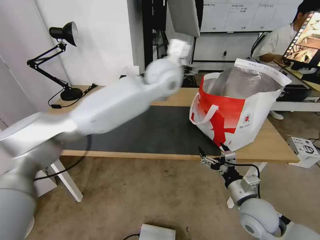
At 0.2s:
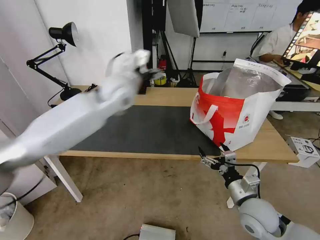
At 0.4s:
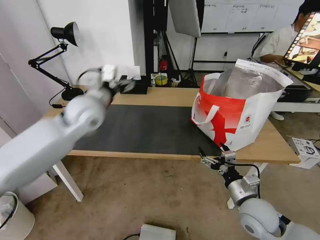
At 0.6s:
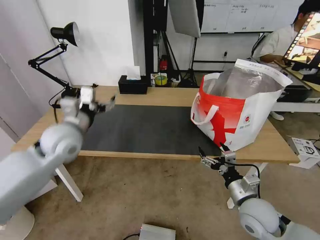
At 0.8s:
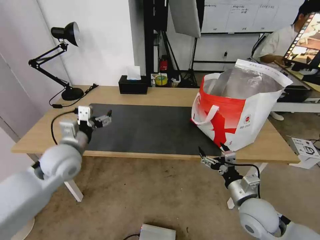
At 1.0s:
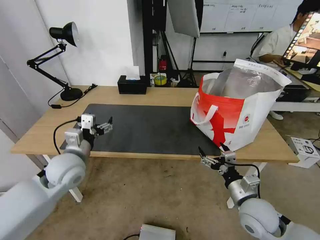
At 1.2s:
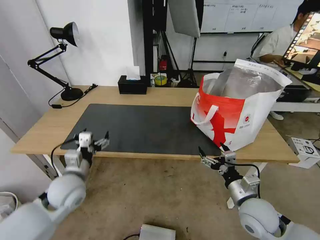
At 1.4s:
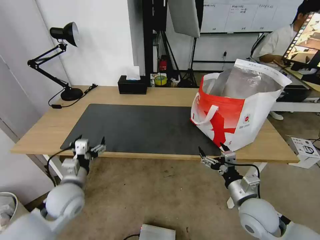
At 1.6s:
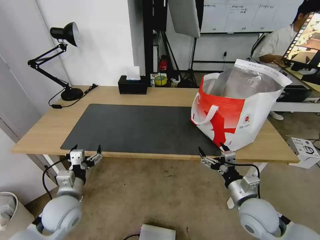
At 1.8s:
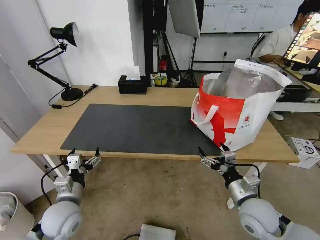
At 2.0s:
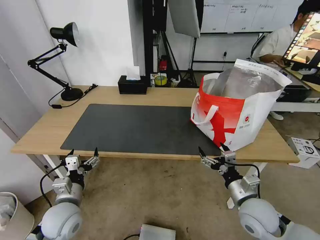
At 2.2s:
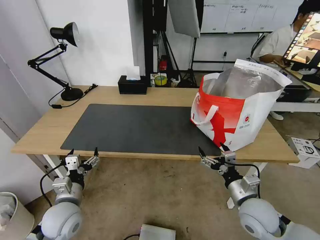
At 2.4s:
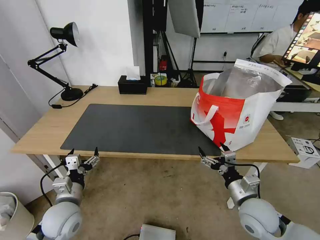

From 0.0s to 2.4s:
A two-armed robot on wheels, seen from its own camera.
Task of the whole recording: Pick up the trash from the table and place it into the takeout bag.
From 0.0s to 1.2s: The left gripper heads to the left, downward and backward, covering about 40 cm.
From 1.2s to 2.4s: The left gripper is displaced backward and downward by about 10 cm.

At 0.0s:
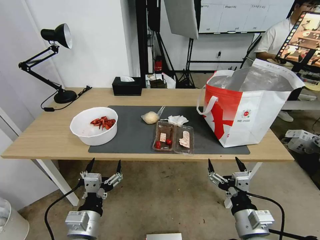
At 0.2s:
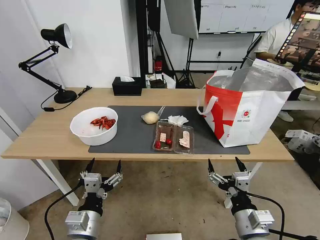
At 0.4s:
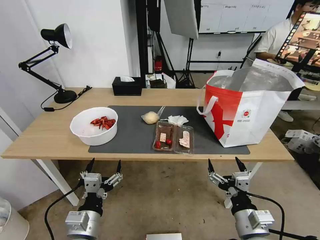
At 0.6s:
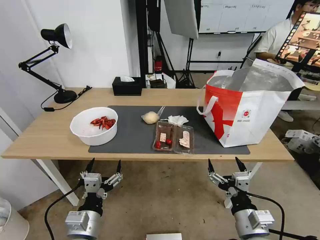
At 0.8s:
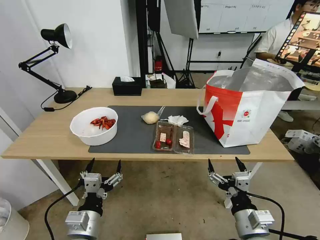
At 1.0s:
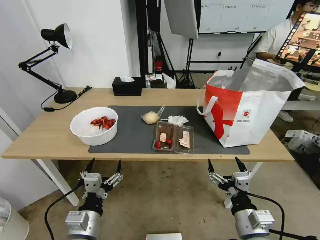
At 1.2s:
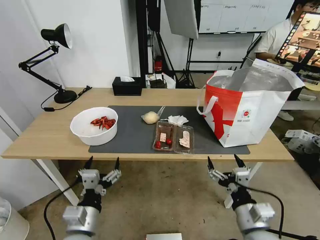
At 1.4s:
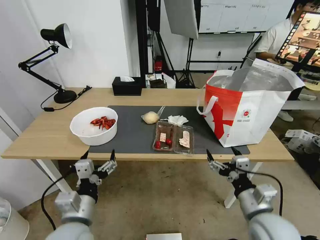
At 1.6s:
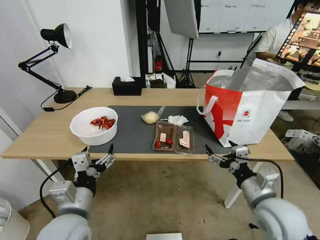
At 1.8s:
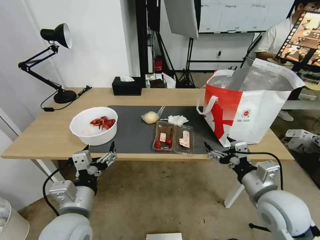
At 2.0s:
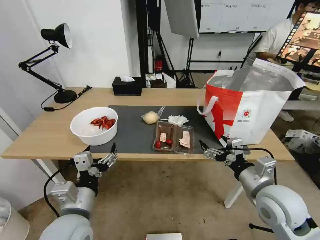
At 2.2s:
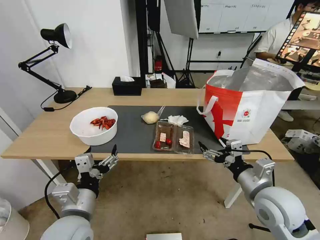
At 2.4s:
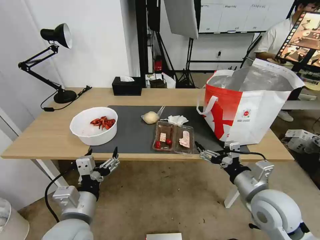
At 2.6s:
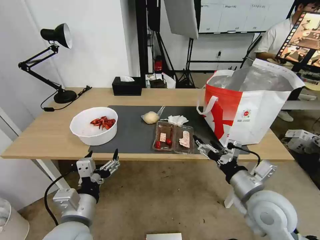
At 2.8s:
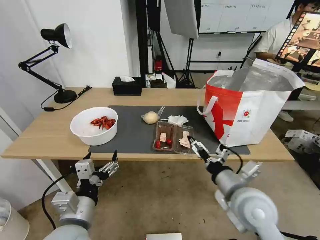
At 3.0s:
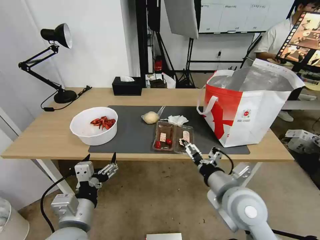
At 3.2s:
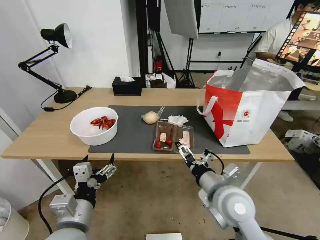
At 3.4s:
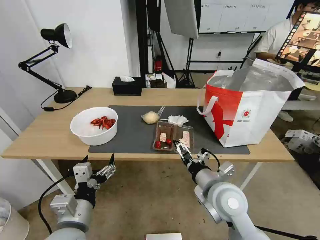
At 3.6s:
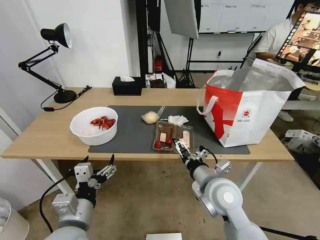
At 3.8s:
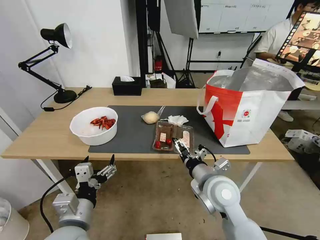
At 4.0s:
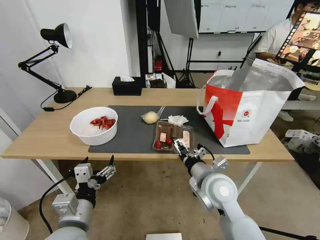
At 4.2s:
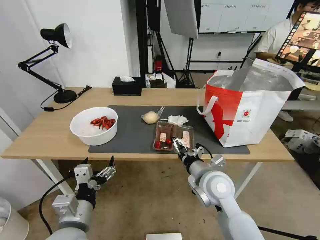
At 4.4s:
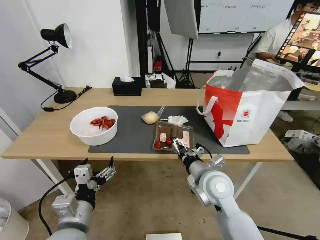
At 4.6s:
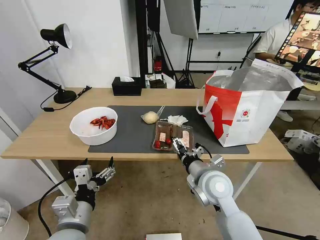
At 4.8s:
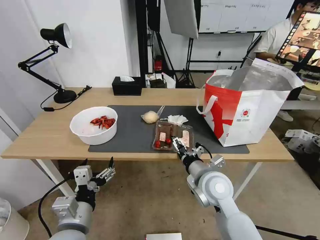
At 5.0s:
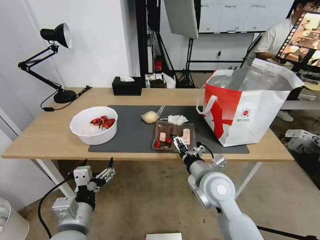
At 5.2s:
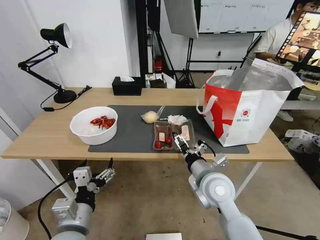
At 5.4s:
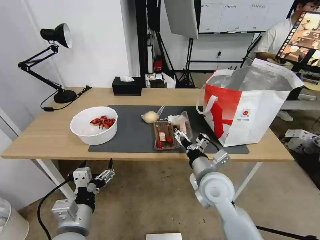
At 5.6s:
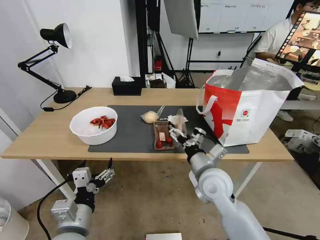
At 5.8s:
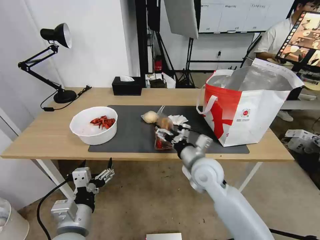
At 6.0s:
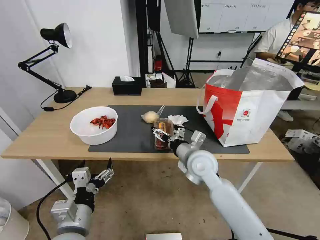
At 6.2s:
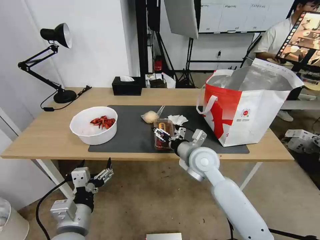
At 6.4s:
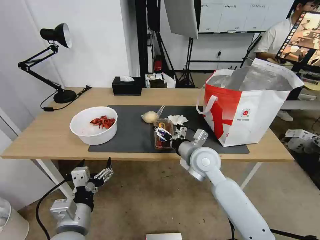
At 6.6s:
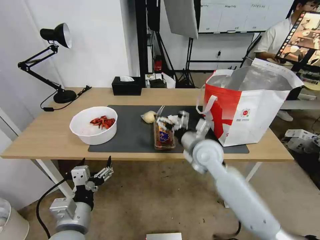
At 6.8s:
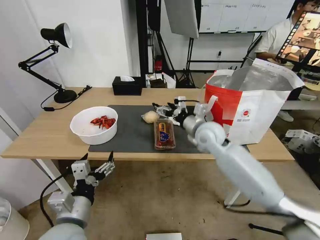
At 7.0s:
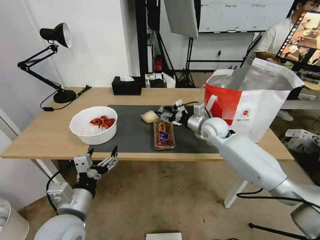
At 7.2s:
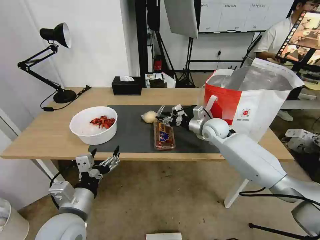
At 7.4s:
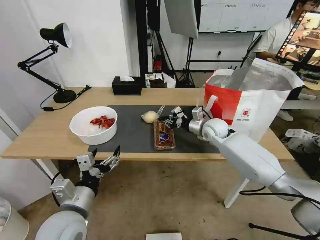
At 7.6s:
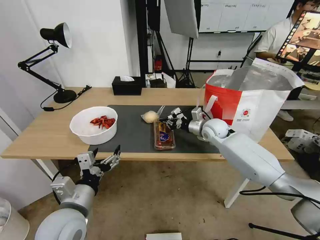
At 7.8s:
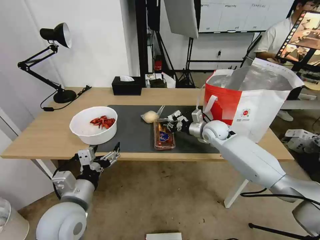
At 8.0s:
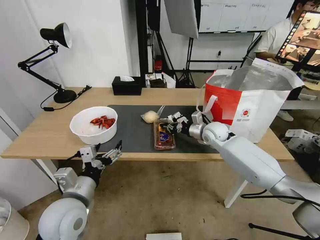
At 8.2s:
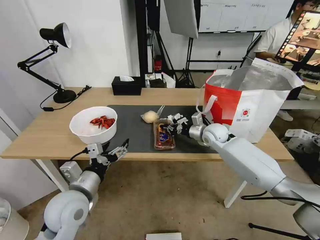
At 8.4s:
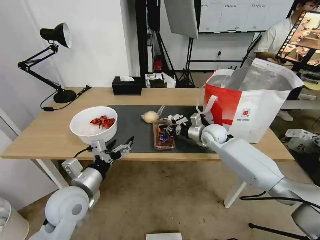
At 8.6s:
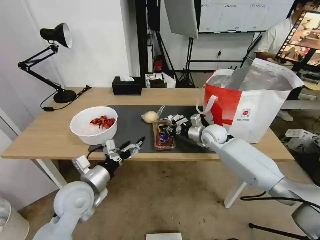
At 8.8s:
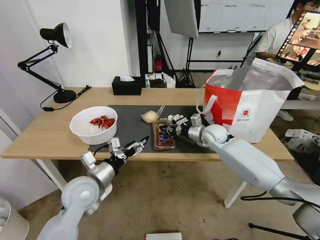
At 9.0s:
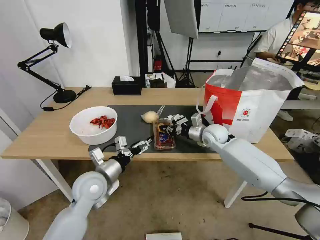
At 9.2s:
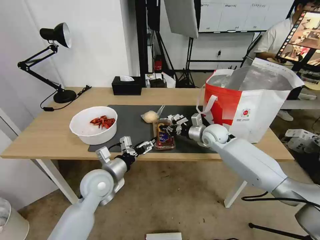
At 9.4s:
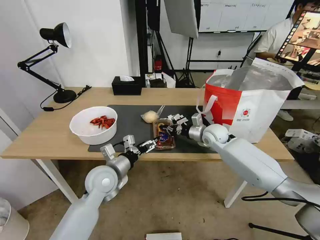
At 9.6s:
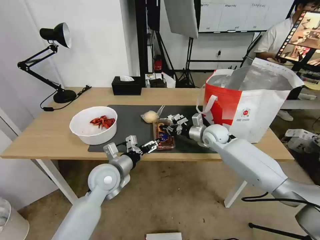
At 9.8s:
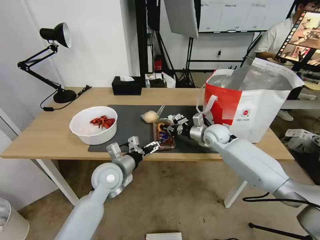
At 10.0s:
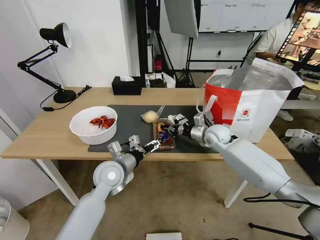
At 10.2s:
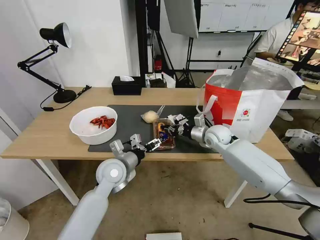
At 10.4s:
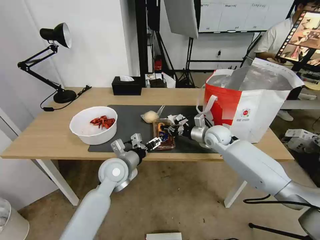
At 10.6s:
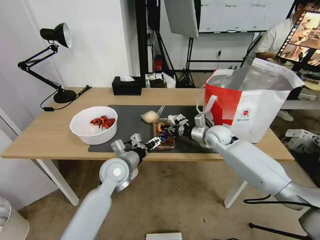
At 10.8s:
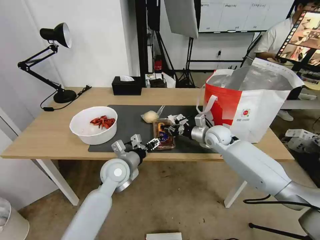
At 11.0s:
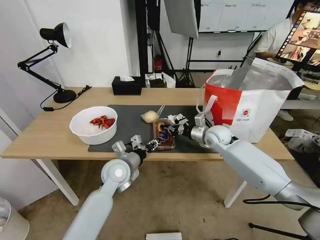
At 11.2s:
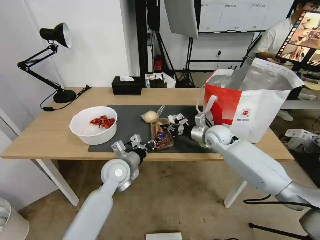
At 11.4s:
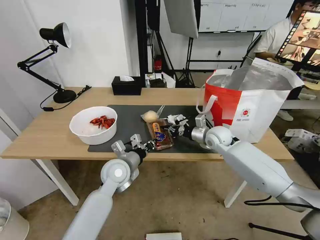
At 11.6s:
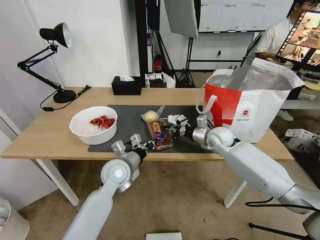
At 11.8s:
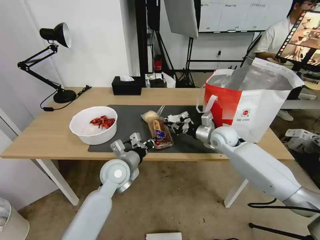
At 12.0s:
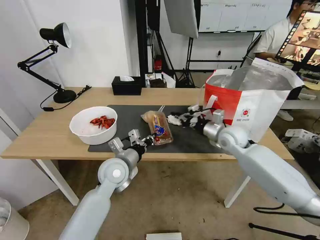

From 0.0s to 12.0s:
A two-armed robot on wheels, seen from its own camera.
Task of the whole recording: Pick up the trash from the table and place it into the takeout bag.
From 1.6s to 3.0s: The right gripper goes about 10 cm to the left.
From 3.0s to 4.4s: The right gripper shifts some 5 cm forward.
From 4.4s to 6.0s: The right gripper shifts about 5 cm forward.
From 6.0s to 7.6s: The right gripper travels forward and to the right by some 20 cm, and closes, while the left gripper ends up some 5 cm from where it was.
From 7.6s to 9.0s: The left gripper heads forward, covering approximately 10 cm.
From 9.0s to 10.4s: The left gripper is displaced to the right and forward by about 10 cm.
From 10.4s to 12.0s: The left gripper closes; the right gripper ends up approximately 5 cm from where it was.

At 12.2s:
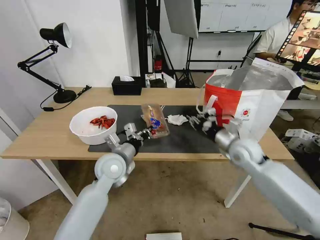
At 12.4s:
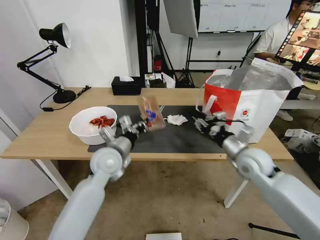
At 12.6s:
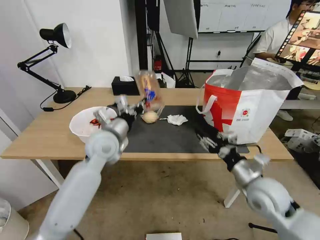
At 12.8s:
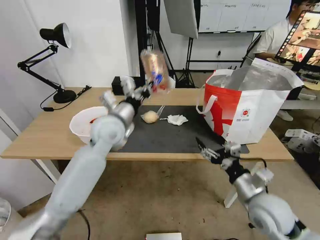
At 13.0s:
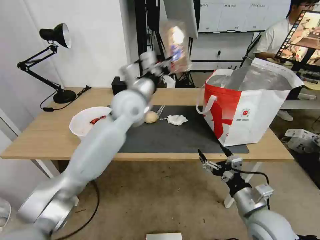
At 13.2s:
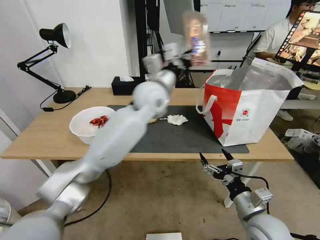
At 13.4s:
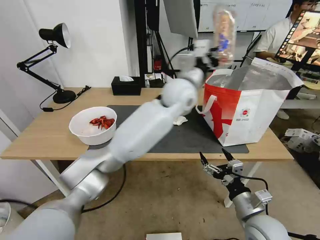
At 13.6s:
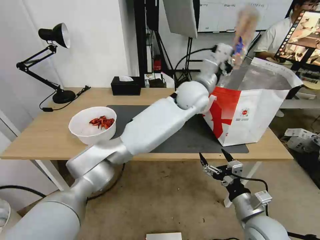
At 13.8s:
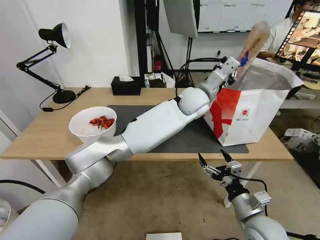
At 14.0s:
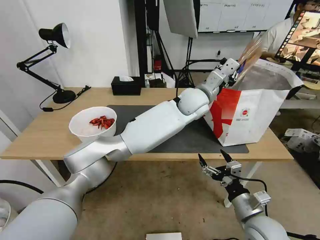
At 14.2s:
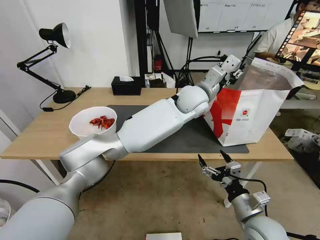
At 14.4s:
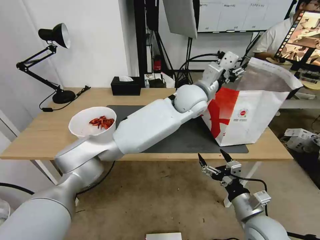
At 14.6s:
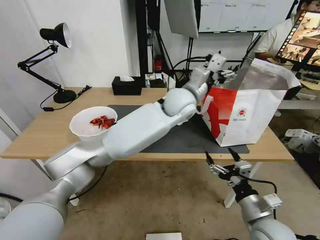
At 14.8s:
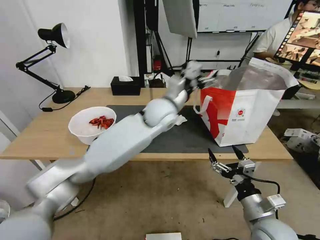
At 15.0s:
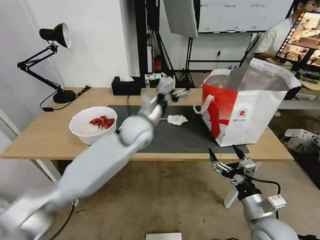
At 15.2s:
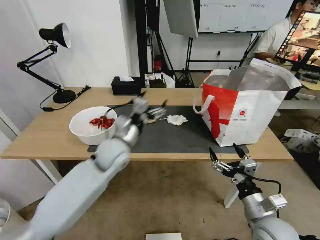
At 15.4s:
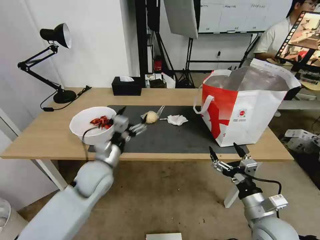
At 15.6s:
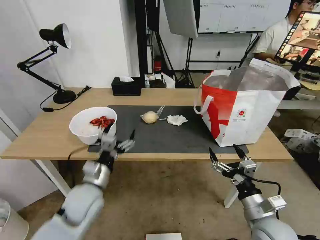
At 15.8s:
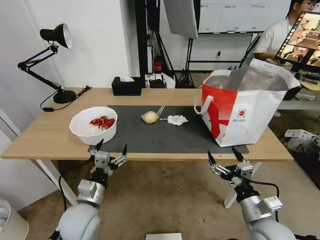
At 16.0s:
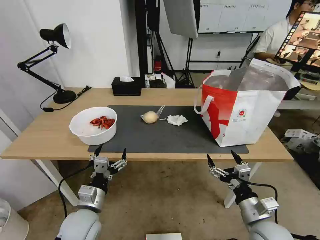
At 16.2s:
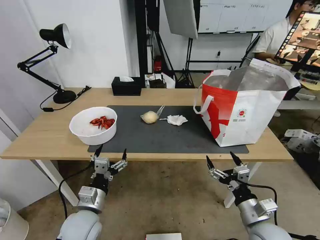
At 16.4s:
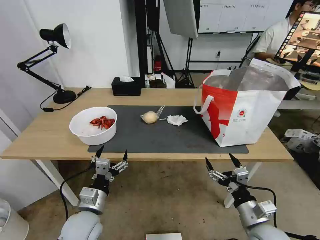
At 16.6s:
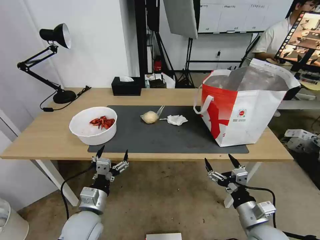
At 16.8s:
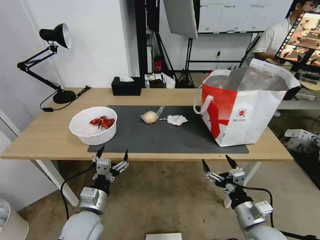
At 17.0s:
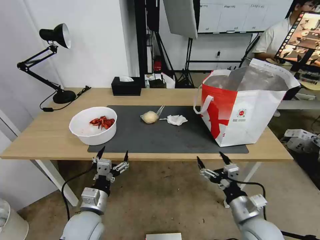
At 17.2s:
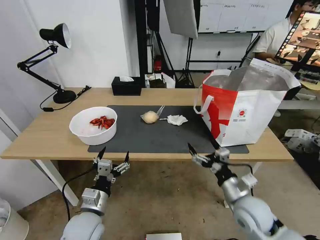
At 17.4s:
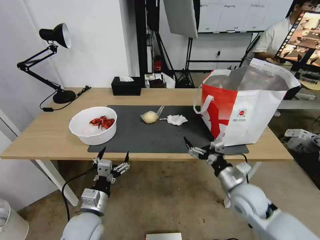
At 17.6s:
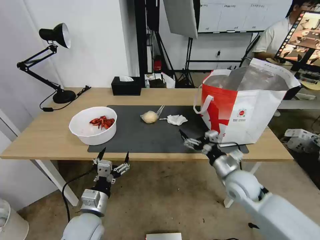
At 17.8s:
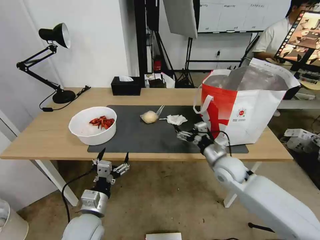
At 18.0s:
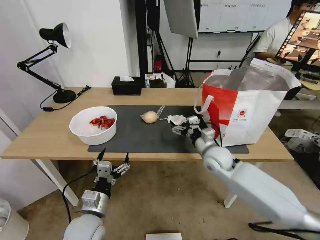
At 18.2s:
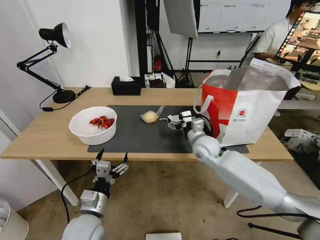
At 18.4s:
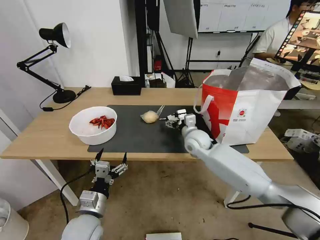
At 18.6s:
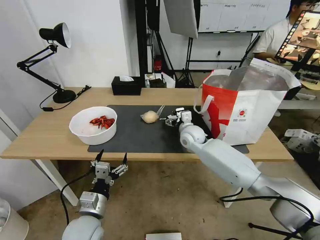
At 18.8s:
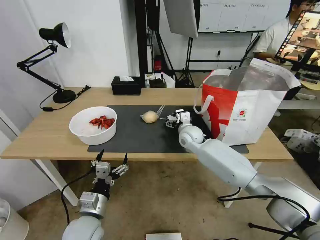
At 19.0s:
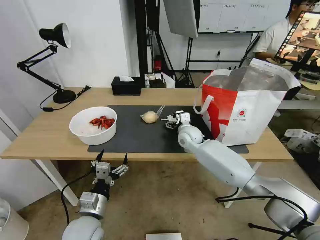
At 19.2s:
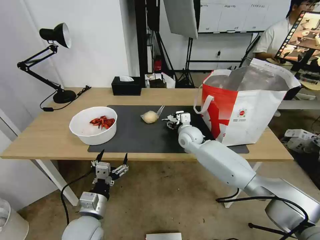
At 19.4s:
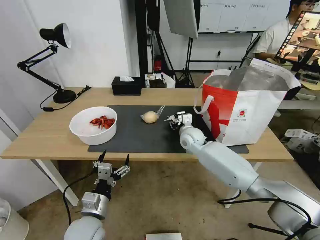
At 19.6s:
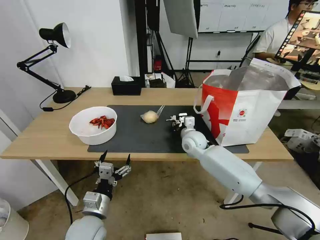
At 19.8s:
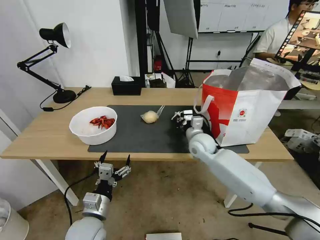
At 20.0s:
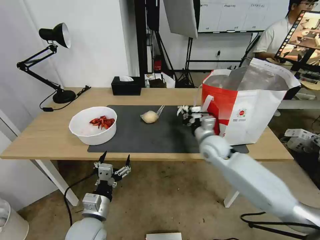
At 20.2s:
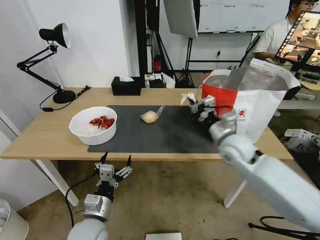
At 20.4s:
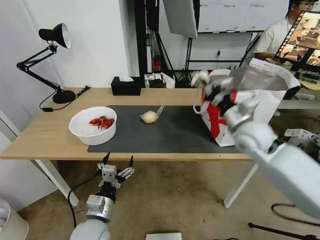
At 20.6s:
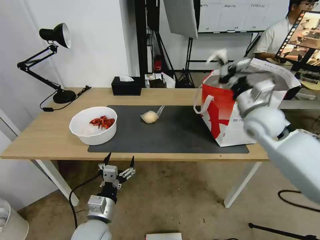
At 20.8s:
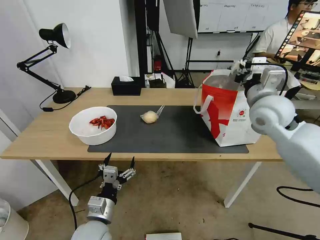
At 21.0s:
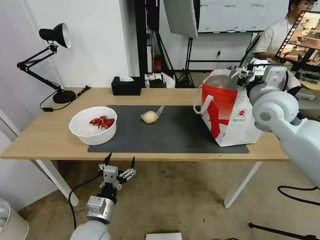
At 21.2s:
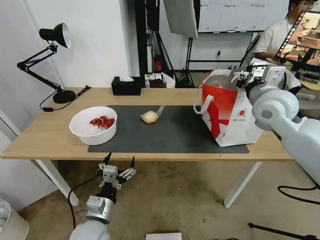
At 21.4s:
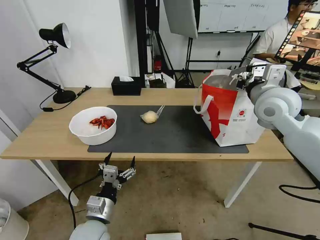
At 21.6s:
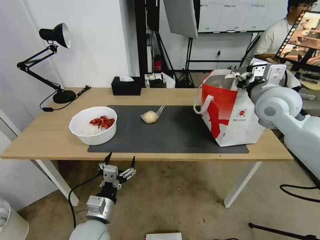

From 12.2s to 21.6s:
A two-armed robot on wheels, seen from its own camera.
Task of the whole recording: Pick up the trash from the table and place it into the takeout bag.
From 12.2s to 13.8s: The left gripper is displaced to the right, forward and upward by approximately 35 cm; the right gripper travels backward by about 25 cm, and opens up.
From 13.8s to 15.4s: The left gripper is displaced to the left, backward and downward by some 40 cm, and opens up.
From 15.4s to 17.0s: The left gripper travels backward and downward by some 15 cm.
From 17.0s to 18.4s: The right gripper goes about 35 cm forward and to the left.
From 18.4s to 20.0s: The right gripper shifts some 5 cm to the right, and closes its fingers.
From 20.0s to 21.6s: The right gripper moves upward and to the right, some 25 cm, and opens up.
